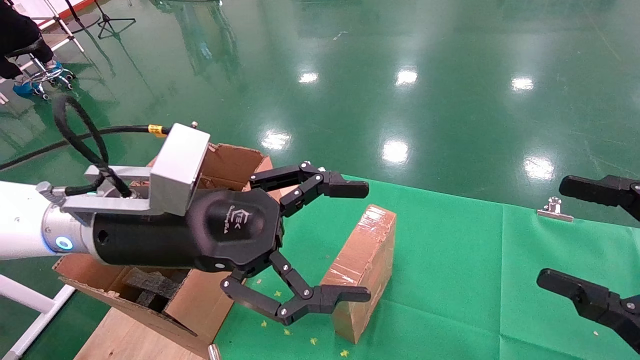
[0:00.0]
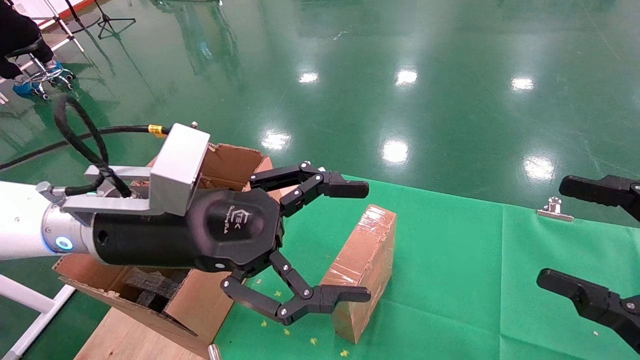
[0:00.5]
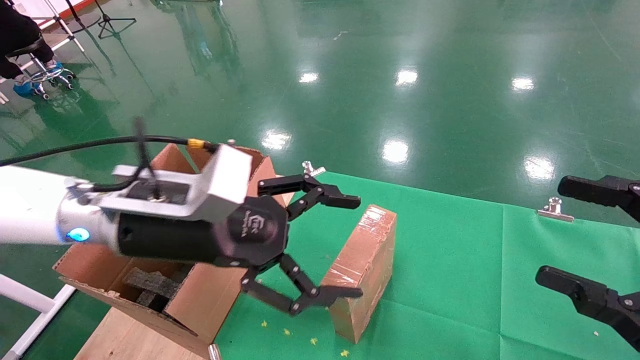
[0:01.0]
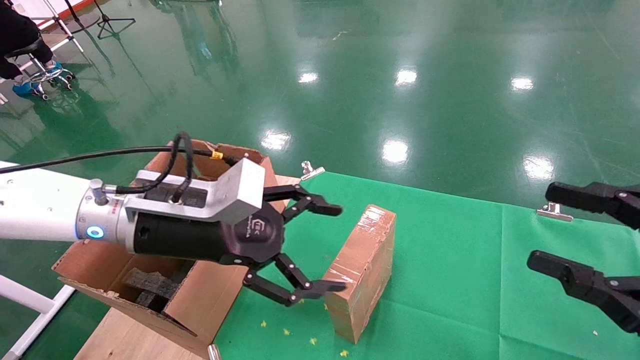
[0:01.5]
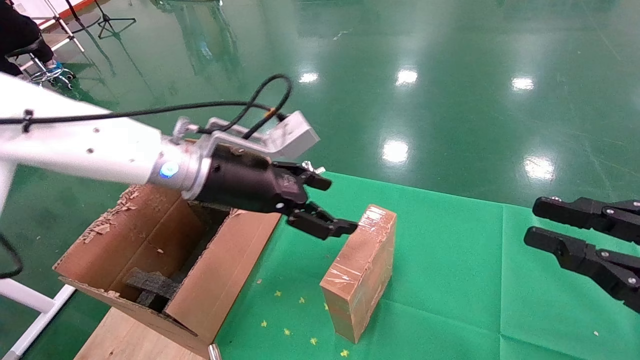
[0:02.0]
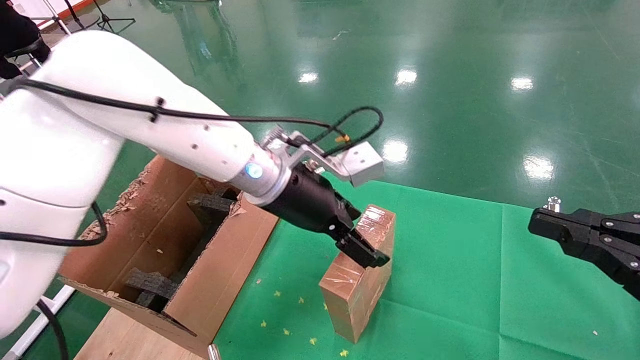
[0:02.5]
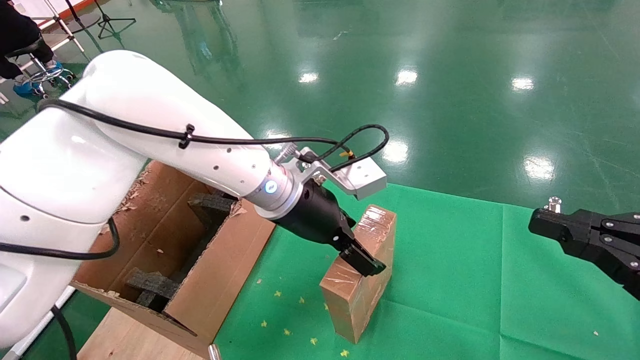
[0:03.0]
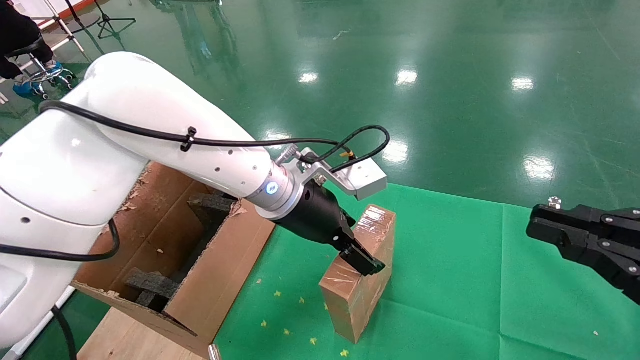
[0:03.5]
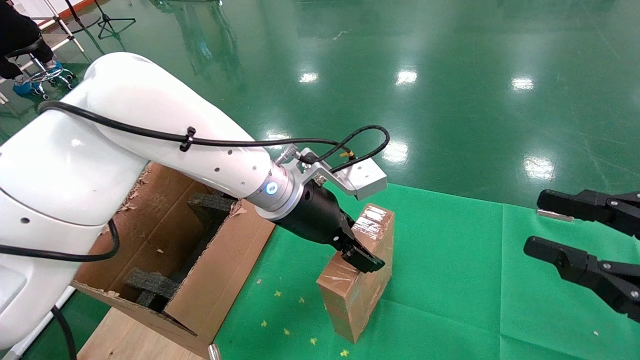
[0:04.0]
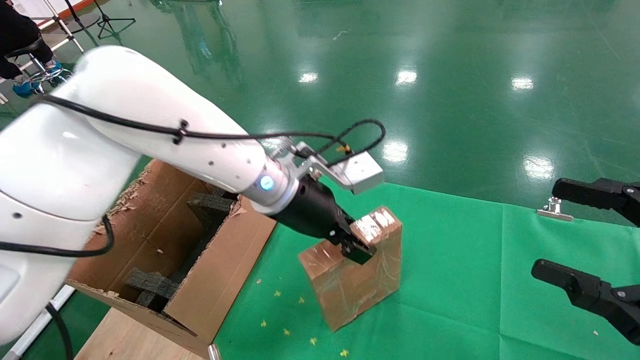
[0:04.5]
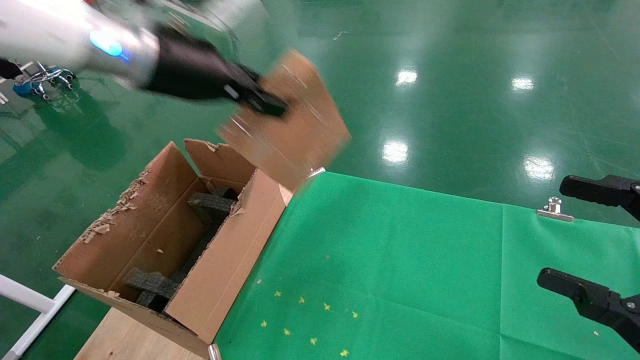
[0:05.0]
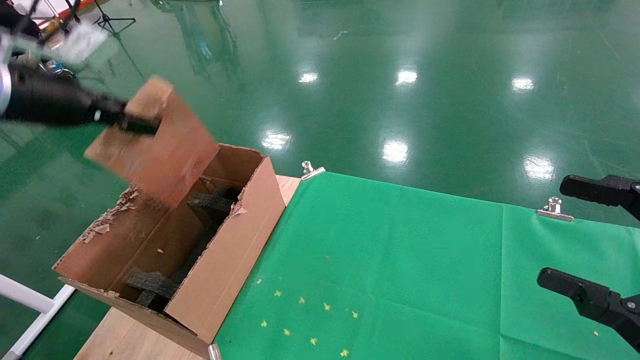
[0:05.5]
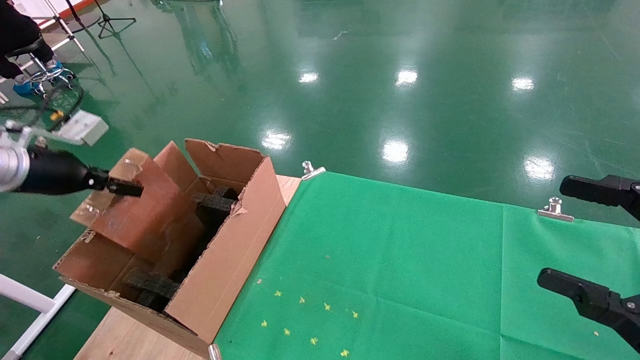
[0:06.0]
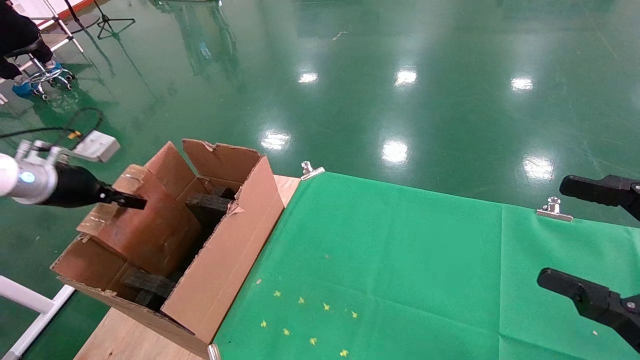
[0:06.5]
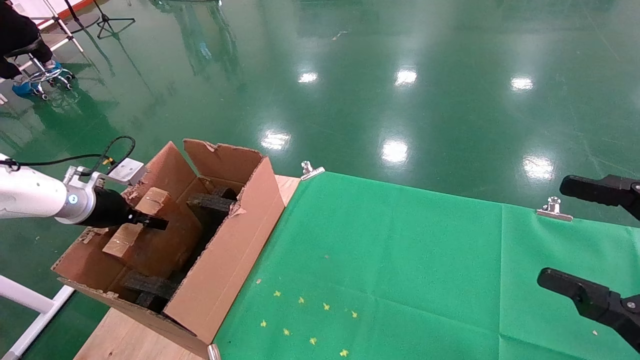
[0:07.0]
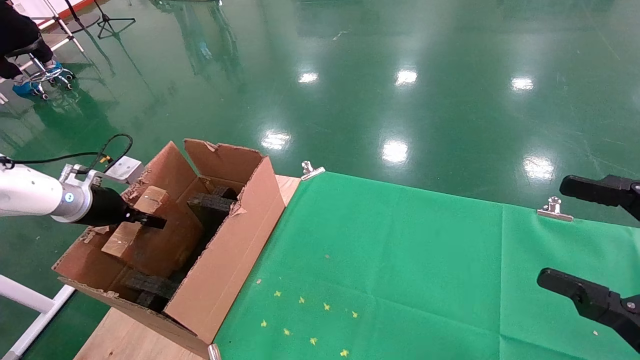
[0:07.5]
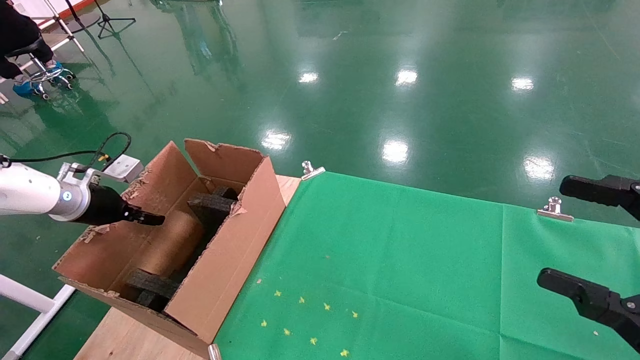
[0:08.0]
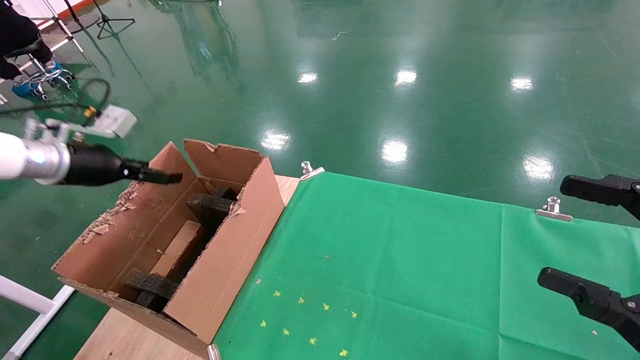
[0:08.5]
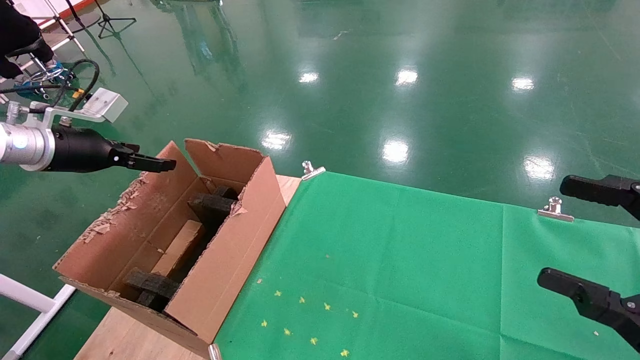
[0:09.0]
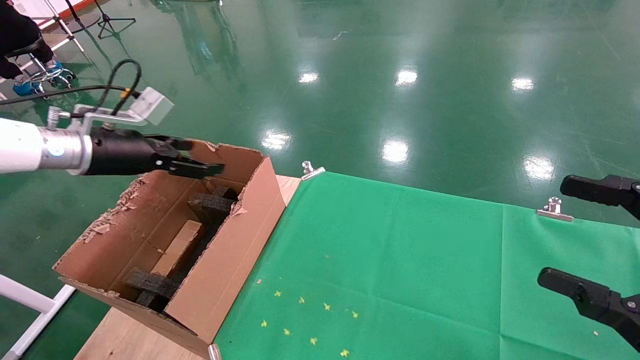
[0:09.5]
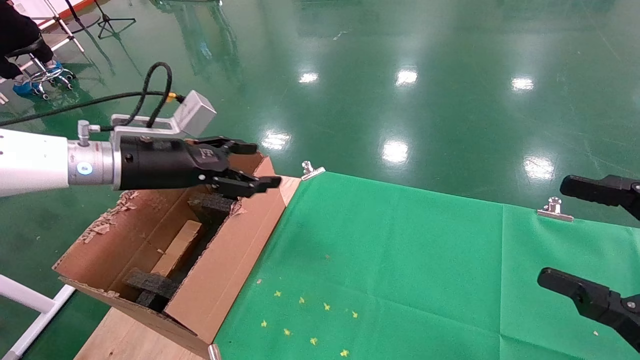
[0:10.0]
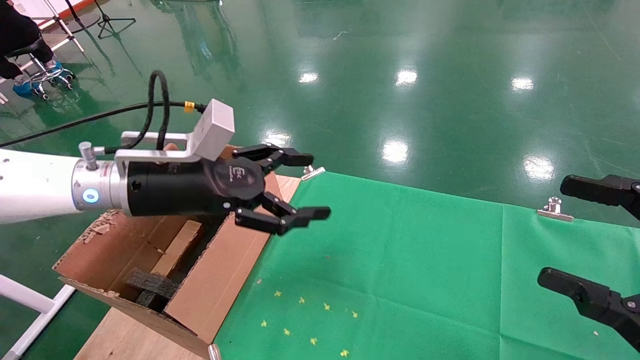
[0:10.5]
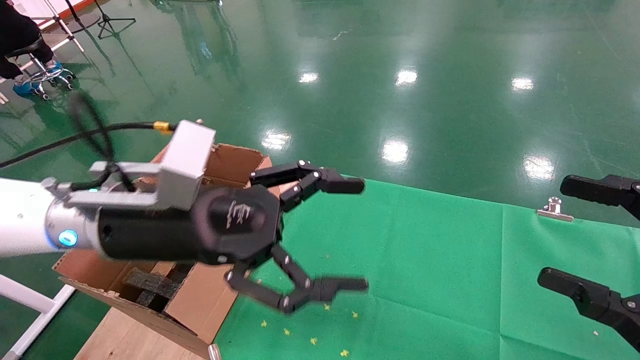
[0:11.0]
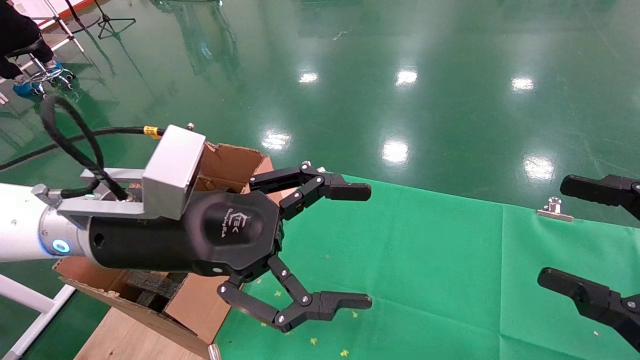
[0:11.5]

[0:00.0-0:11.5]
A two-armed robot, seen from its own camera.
Task of the whole recording: using a robotic arm to pick up a cardboard box and palace it the carton.
Step, 0:01.0 to 0:04.5: Pick up the mouse and the power cord paper box.
Step, 0:05.0 to 0:08.0: Place the mouse and the power cord paper box into the container.
0:00.0 to 0:02.0: The right gripper closes up; the left gripper moves forward, some 10 cm.
0:02.0 to 0:04.0: The left gripper travels to the right by some 10 cm.
0:04.0 to 0:06.0: The right gripper opens its fingers; the left gripper shifts approximately 40 cm to the left, and closes its fingers.
0:06.0 to 0:07.5: The left gripper heads downward and forward, covering about 10 cm.
0:07.5 to 0:09.5: The left gripper travels upward and to the right by some 15 cm, and opens its fingers.
0:09.5 to 0:11.5: The left gripper heads to the right and backward, covering roughly 25 cm.

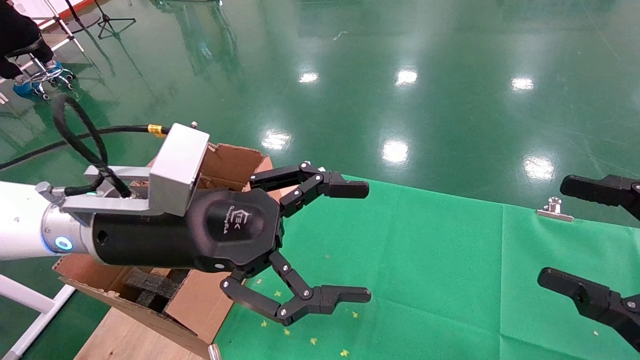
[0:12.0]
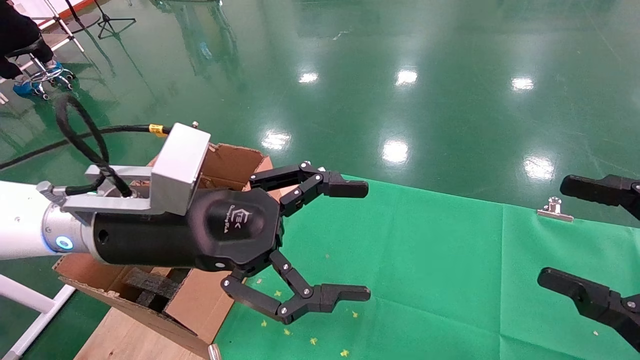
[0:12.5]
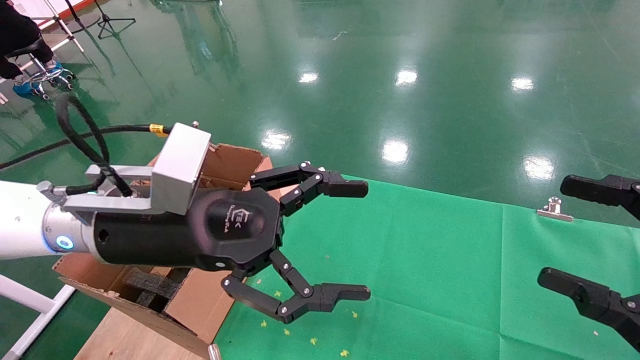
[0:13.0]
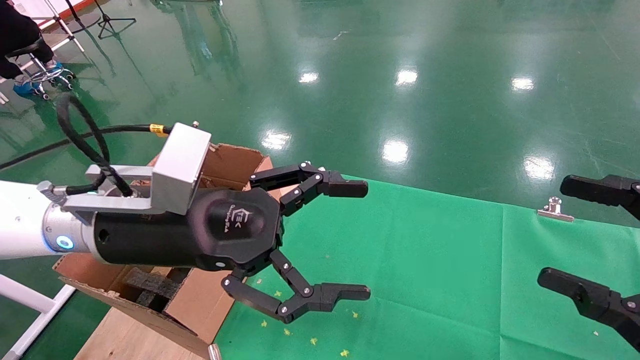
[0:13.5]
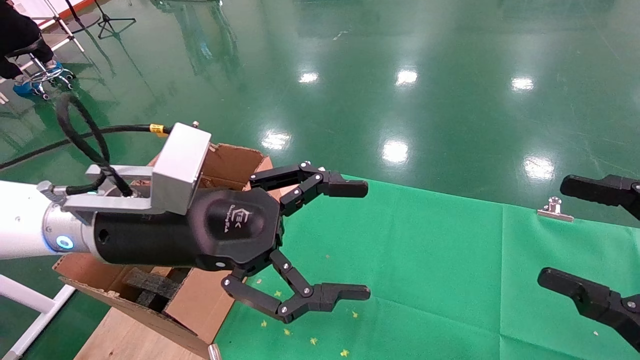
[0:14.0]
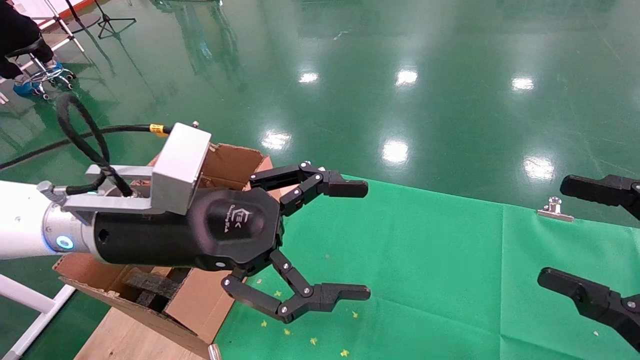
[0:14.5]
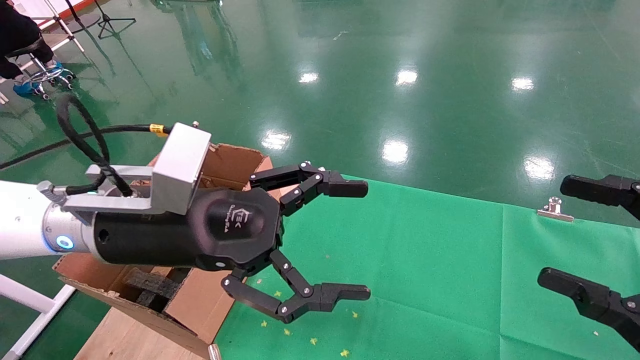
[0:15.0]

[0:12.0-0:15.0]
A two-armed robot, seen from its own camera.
Task of the whole recording: using a robotic arm to pick up a cardboard box and palace it the carton.
0:12.0 to 0:15.0: Neither gripper changes place.
